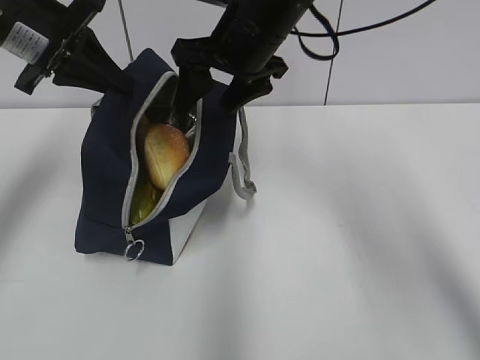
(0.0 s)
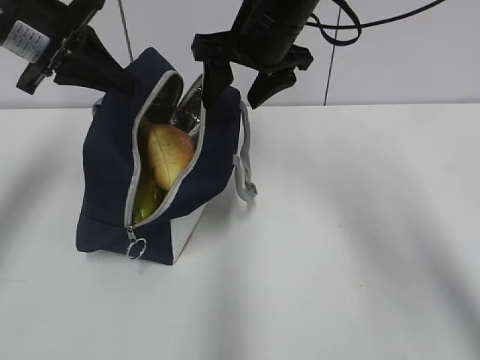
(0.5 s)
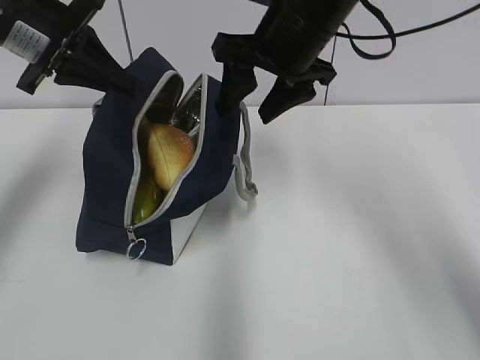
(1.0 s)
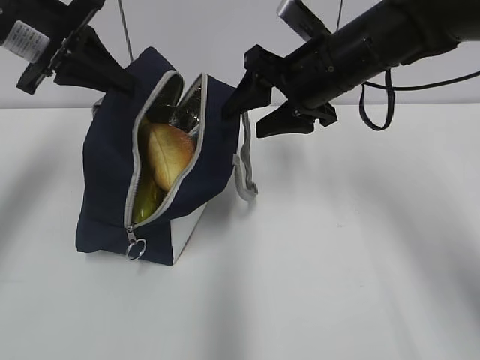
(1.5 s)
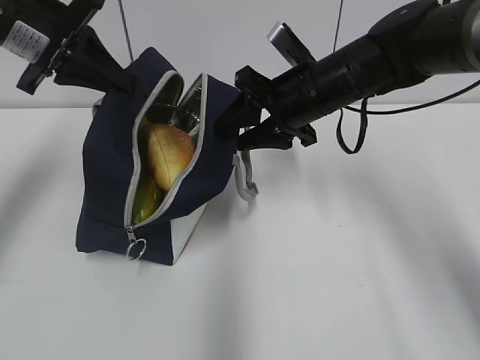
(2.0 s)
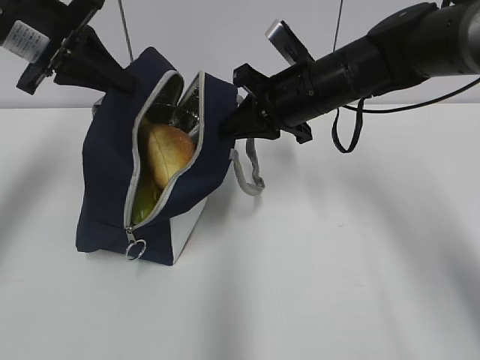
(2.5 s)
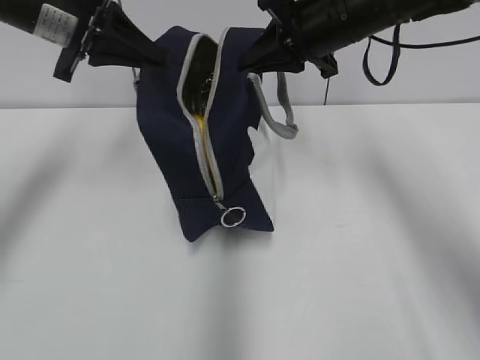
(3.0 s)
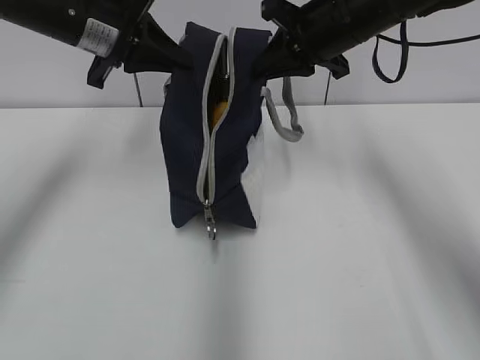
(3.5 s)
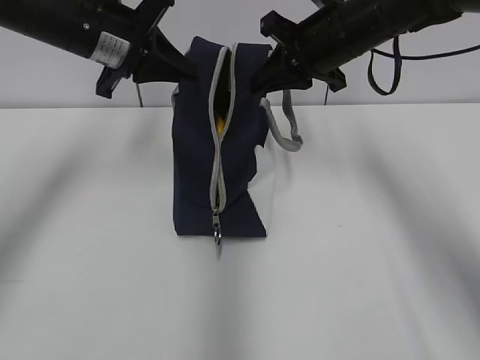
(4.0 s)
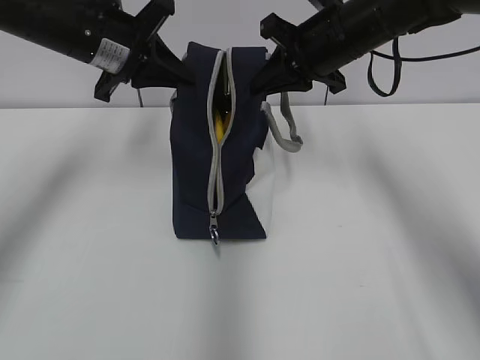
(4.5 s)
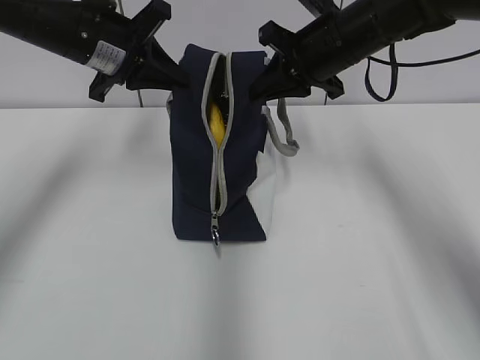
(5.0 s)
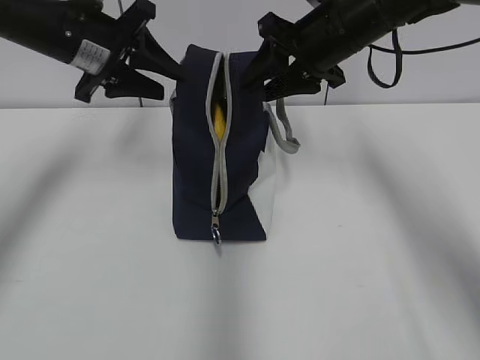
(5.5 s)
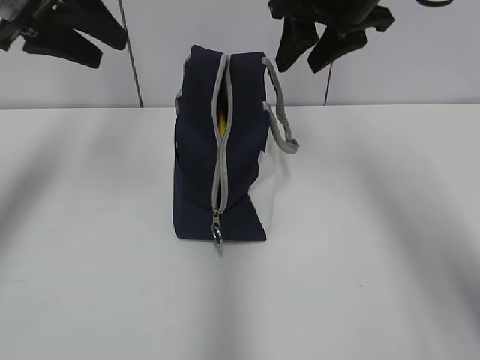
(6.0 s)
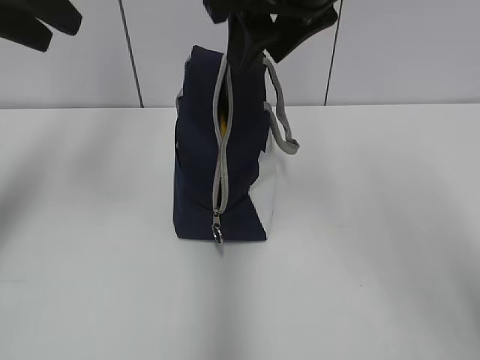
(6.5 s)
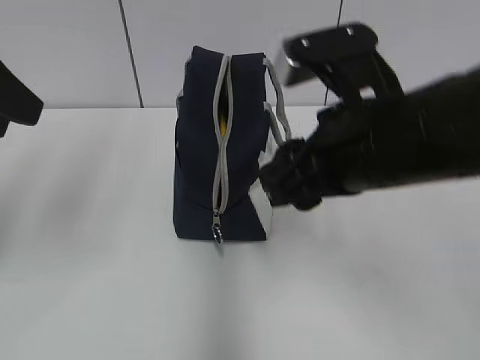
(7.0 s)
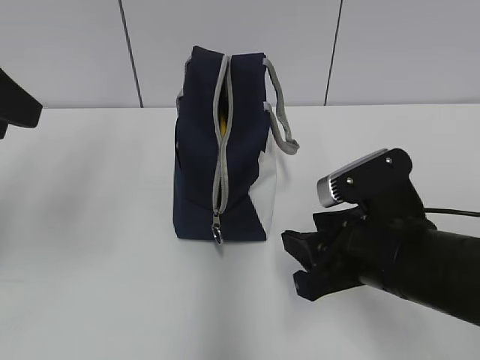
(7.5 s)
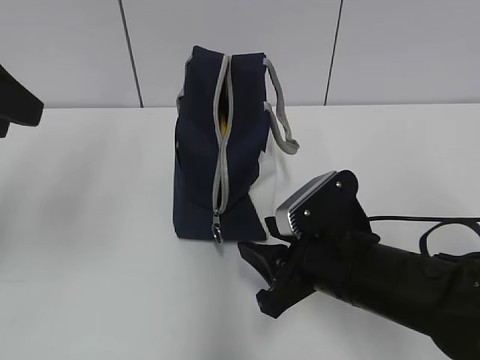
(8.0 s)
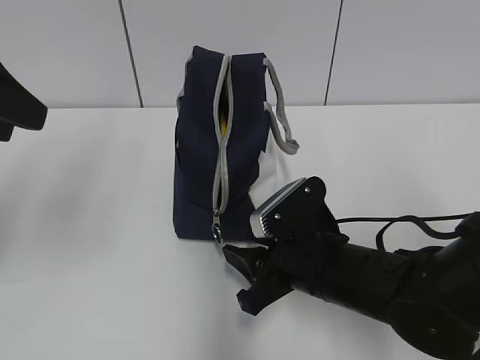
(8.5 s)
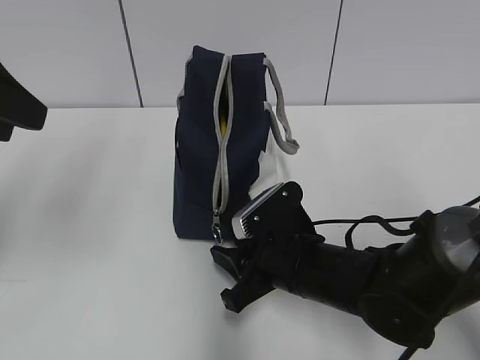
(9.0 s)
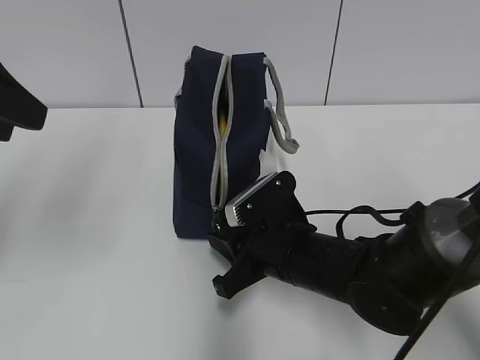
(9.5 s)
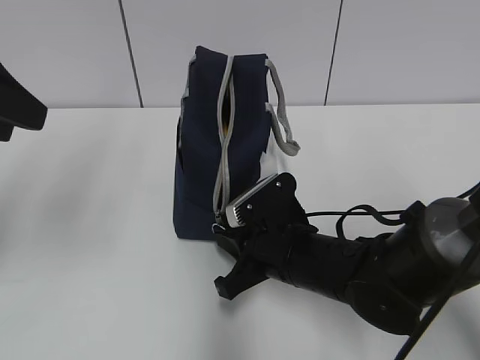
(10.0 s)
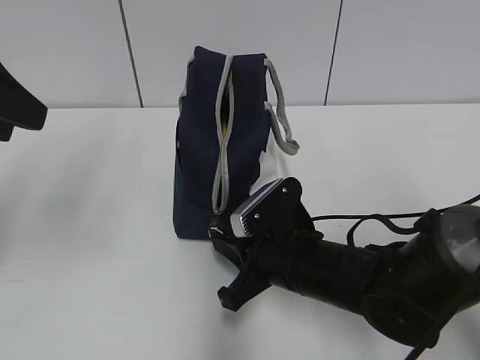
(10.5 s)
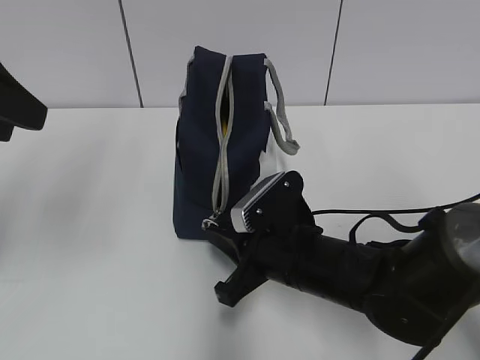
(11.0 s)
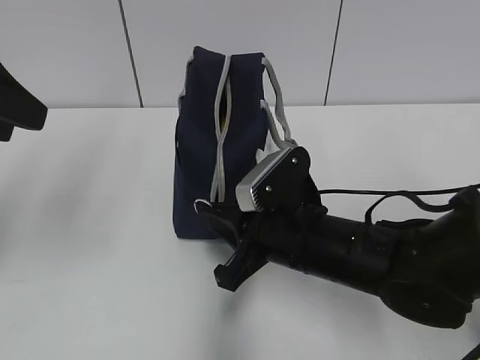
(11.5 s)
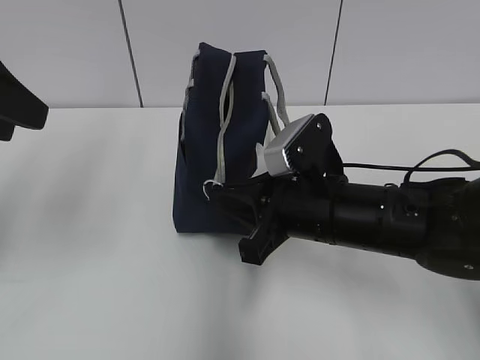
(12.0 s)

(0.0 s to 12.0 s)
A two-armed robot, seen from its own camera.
Step, 0.0 s - 2.5 s: Grab the lunch bag with your right hand.
Step, 3.0 s - 5.0 s: Move the lunch bag to the right.
0.0 s - 2.0 s: The right gripper shifts roughly 10 cm downward and to the right.
2.0 s - 4.0 s: The right gripper travels upward by some 5 cm, and closes up; the left gripper goes about 5 cm to the right.
4.0 s - 6.0 s: The left gripper moves upward and to the left, about 10 cm, and opens. The right gripper moves upward, roughly 5 cm, and opens up.
6.0 s - 8.0 s: The left gripper heads backward, covering some 15 cm. Meanwhile the right gripper travels downward and backward by approximately 30 cm.
8.0 s - 10.0 s: The right gripper ends up about 5 cm from where it was, and closes up.
10.0 s - 12.0 s: The right gripper is displaced upward by some 10 cm.

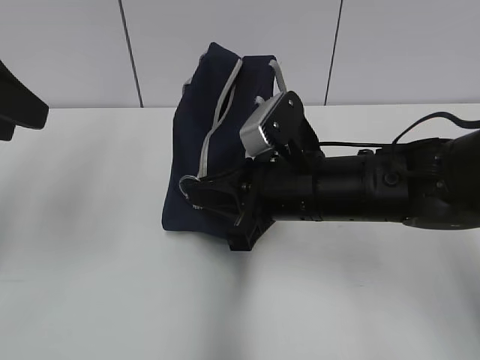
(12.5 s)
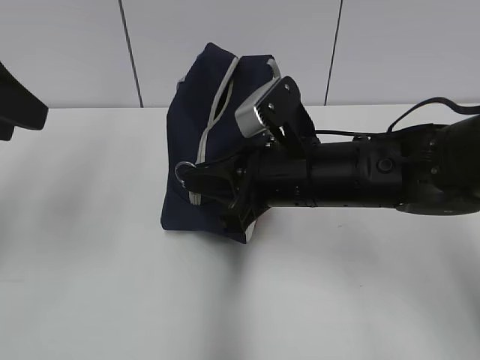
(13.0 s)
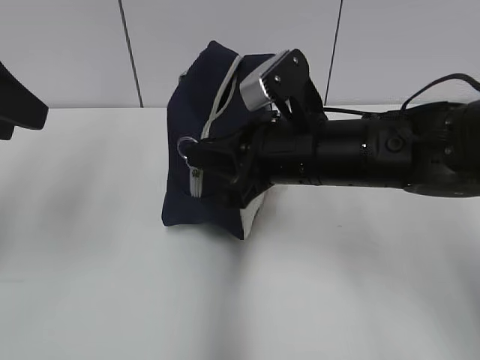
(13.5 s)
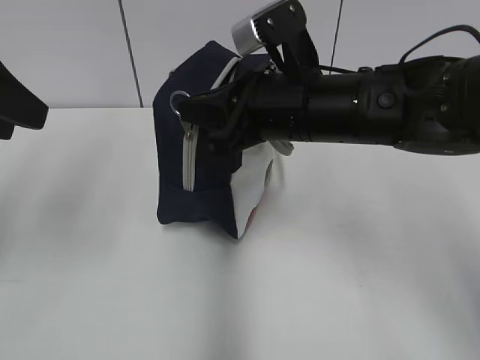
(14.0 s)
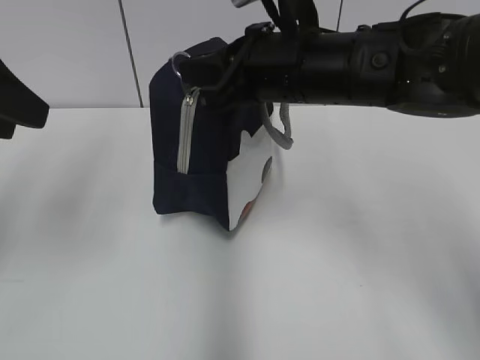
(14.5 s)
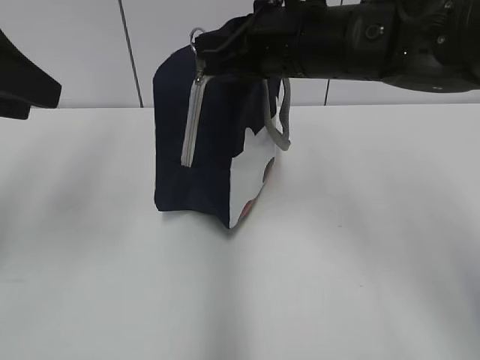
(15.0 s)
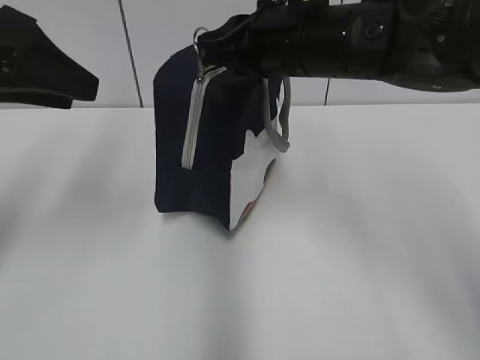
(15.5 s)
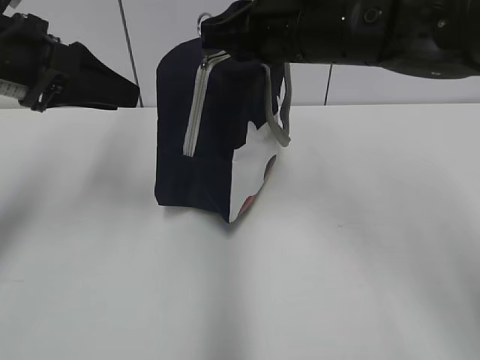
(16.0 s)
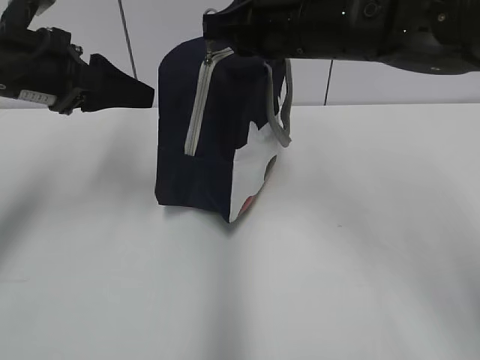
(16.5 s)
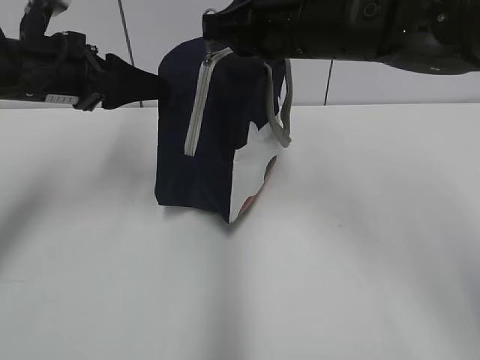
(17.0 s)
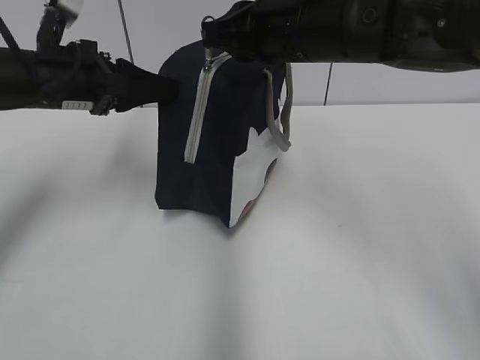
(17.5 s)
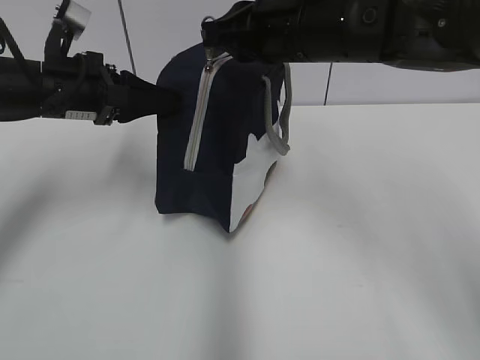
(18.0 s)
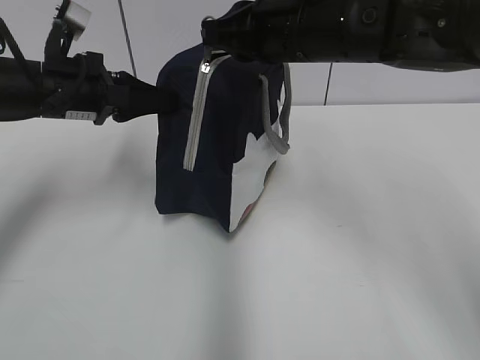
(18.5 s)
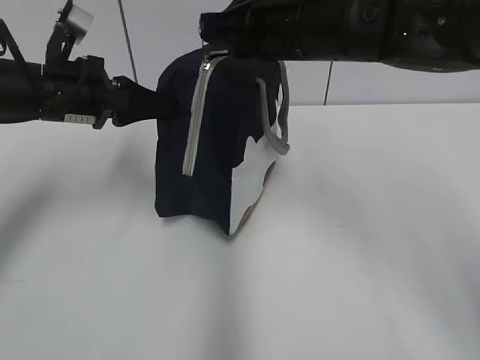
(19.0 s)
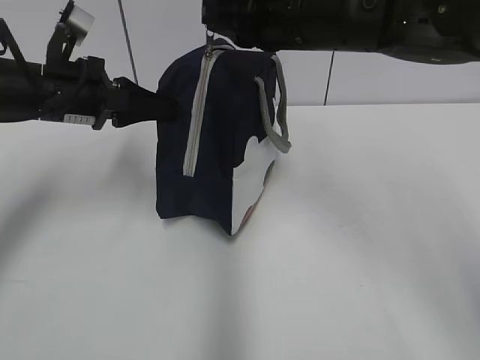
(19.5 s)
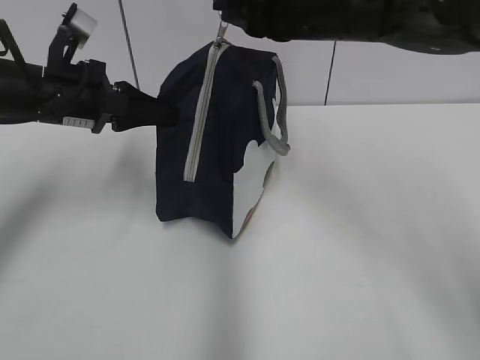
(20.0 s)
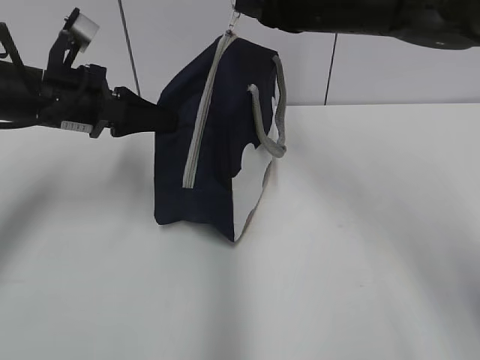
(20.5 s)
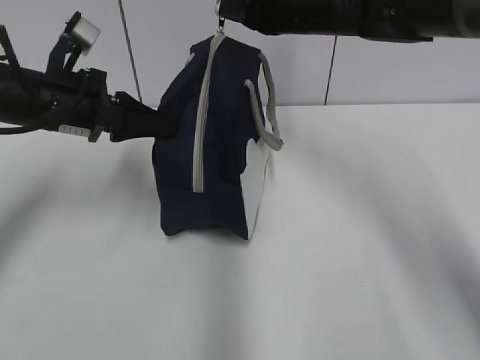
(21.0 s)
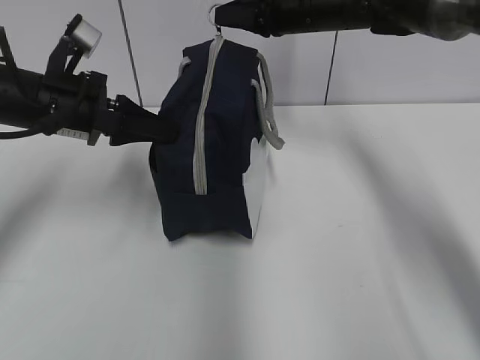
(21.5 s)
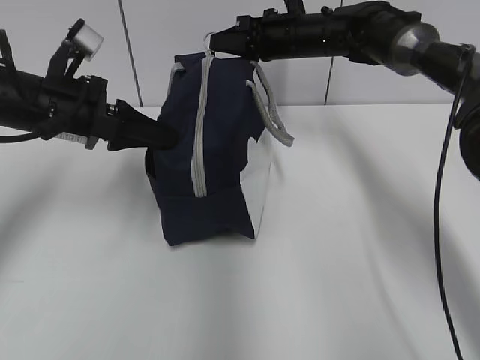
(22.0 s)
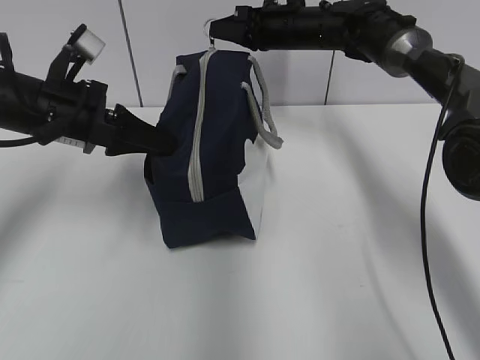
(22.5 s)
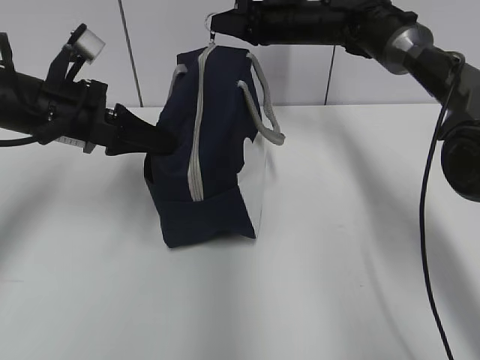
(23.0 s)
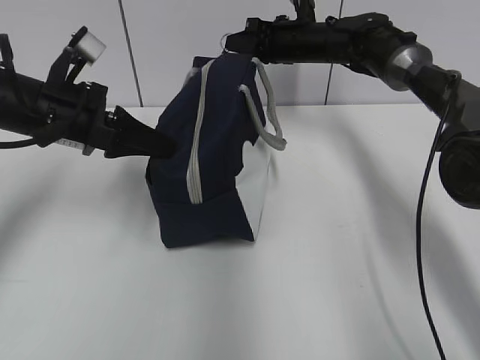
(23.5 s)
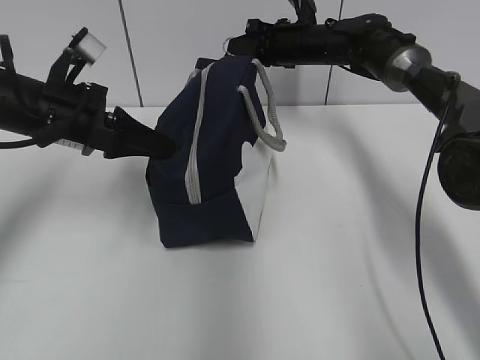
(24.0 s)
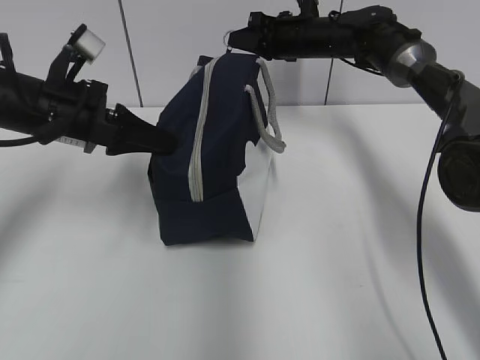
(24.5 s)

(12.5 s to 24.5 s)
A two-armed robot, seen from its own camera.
12.5 s - 14.5 s: The right gripper shifts some 10 cm upward.
14.5 s - 16.5 s: The left gripper goes some 10 cm forward and downward.
16.5 s - 18.5 s: The left gripper ends up roughly 5 cm from where it was, and closes.
18.5 s - 20.5 s: The right gripper moves approximately 5 cm.
20.5 s - 22.5 s: The right gripper shifts about 20 cm forward and downward.
22.5 s - 24.5 s: There are only small adjustments of the grippers.

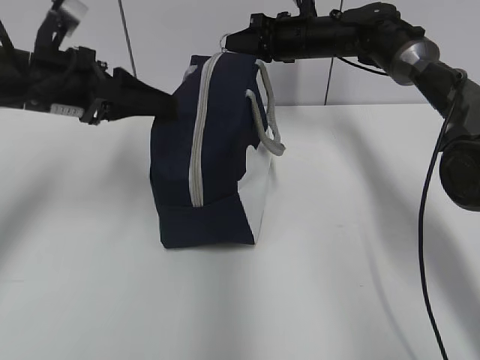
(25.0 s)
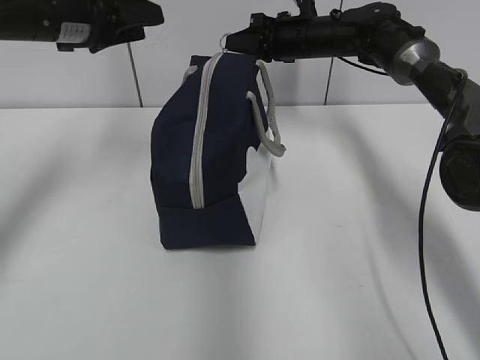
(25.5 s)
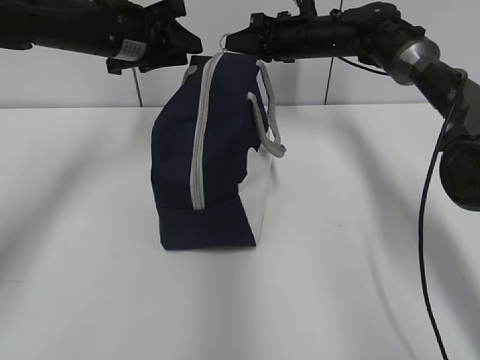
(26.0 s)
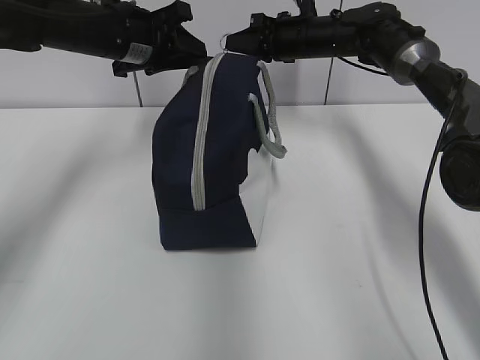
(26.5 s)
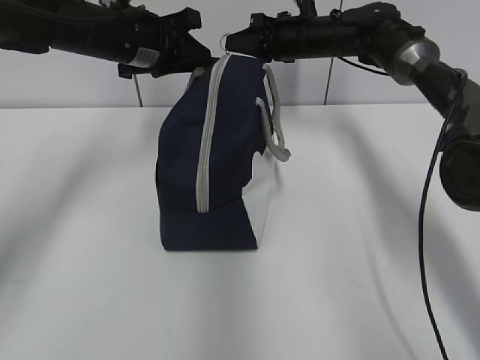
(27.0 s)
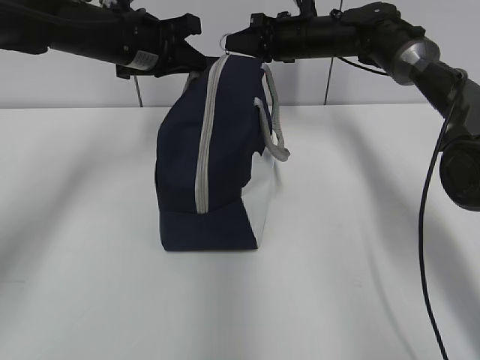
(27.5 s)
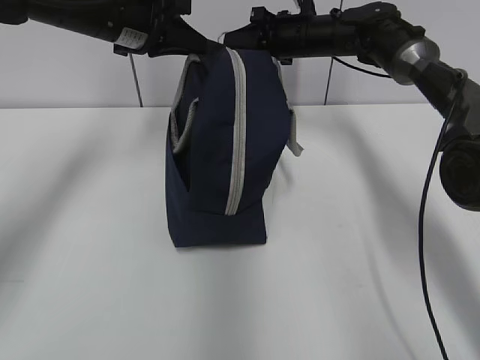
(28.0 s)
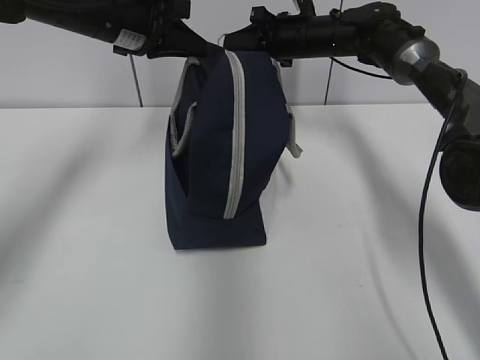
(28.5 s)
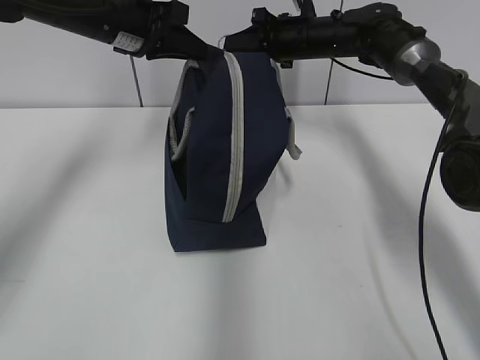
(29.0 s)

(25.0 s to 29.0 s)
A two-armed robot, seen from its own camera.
25.0 s - 27.0 s: The left gripper goes roughly 10 cm forward and to the right.
27.0 s - 29.0 s: The grippers make only small movements.
